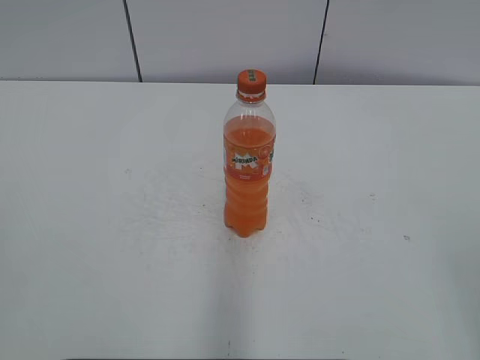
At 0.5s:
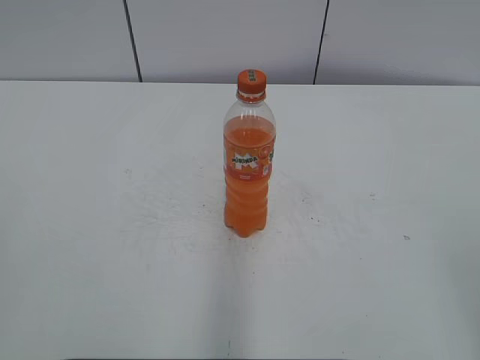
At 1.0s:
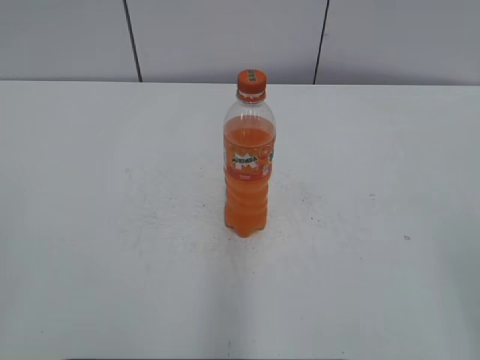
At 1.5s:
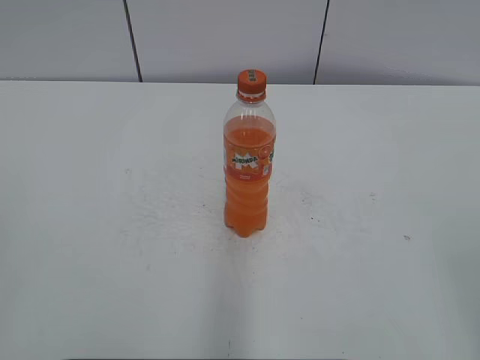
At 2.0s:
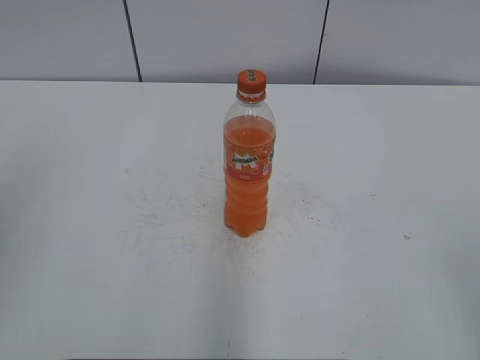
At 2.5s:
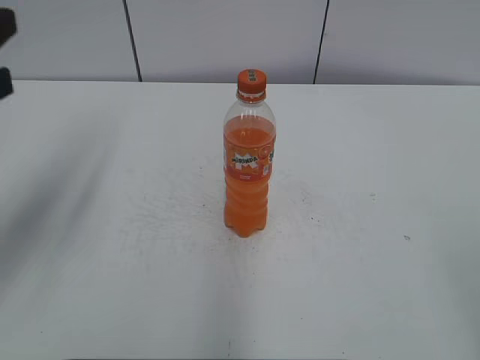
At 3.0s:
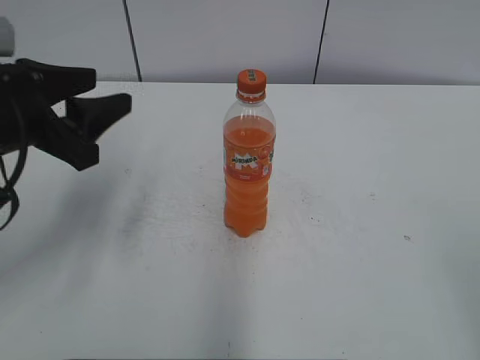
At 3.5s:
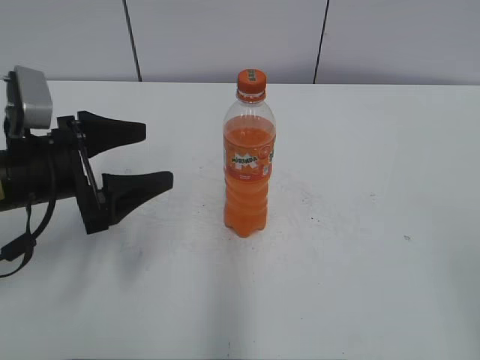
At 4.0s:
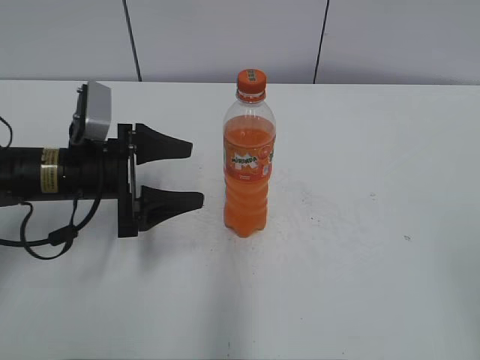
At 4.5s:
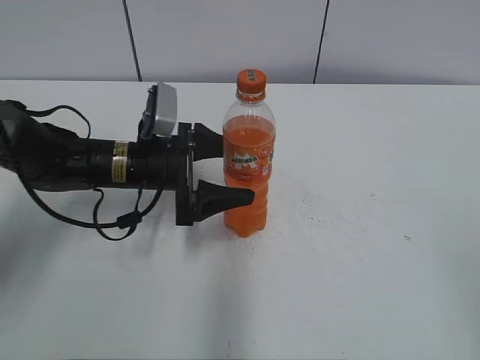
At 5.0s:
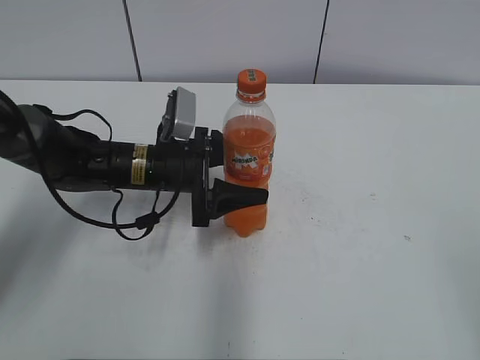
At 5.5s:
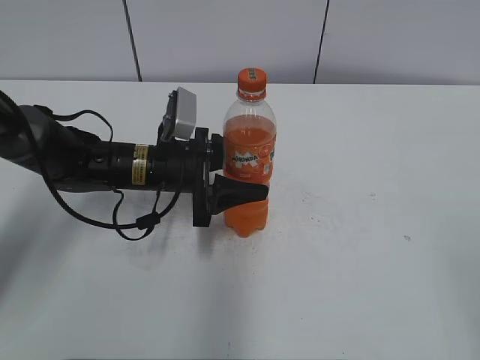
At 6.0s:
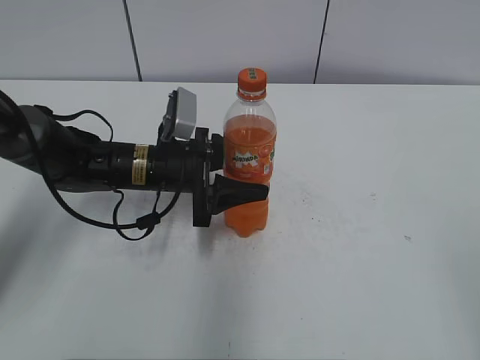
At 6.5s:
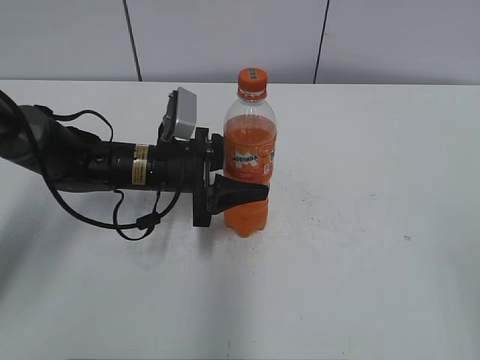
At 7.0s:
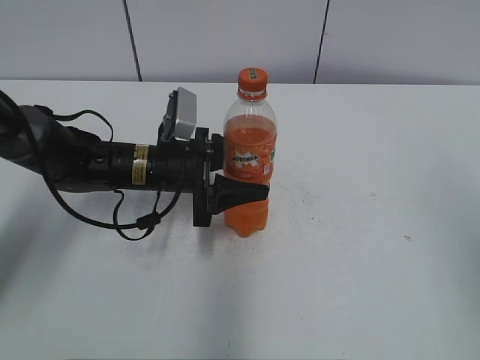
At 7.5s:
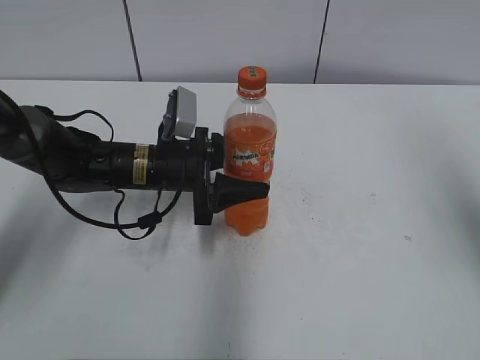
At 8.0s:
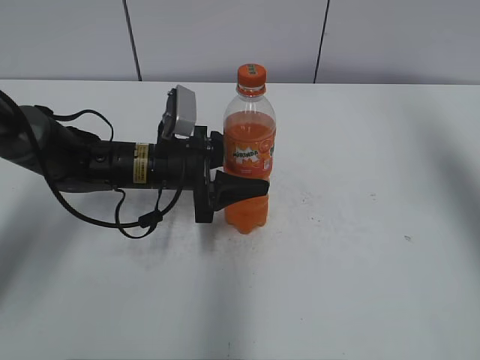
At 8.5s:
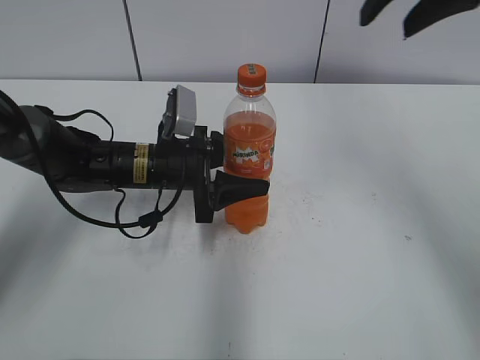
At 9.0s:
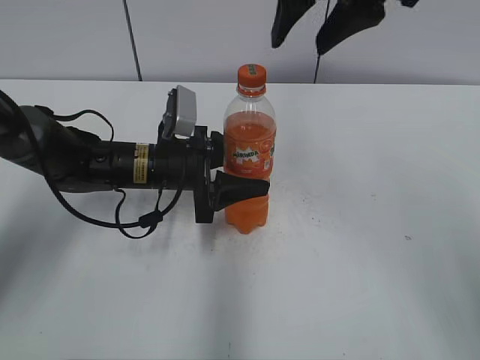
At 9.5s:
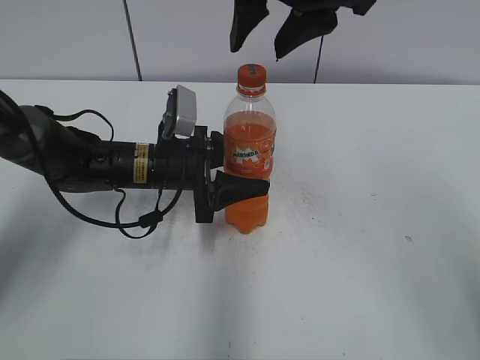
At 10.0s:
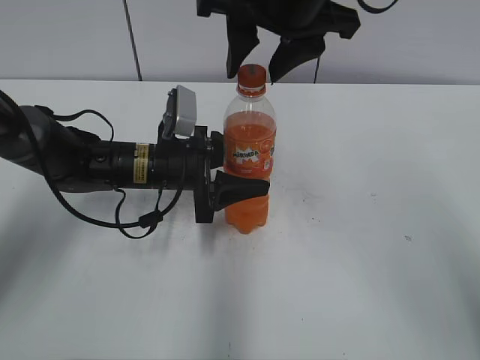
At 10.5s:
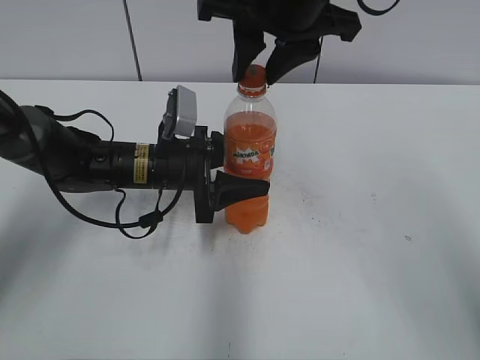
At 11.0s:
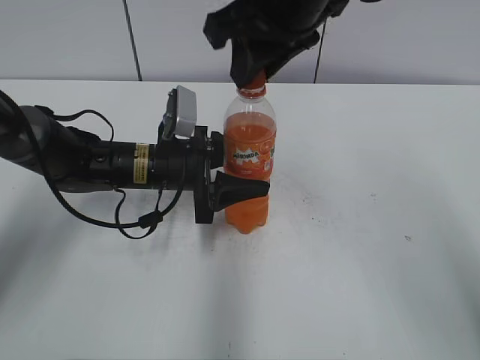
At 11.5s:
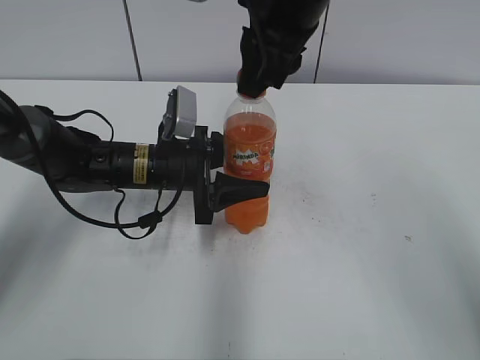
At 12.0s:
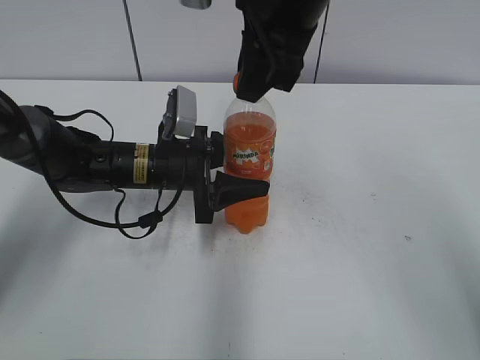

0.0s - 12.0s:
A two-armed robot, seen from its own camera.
Step, 0.0s - 5.0s: Grab the Mirinda with the left hand.
2.0s - 4.0s: The left gripper goes about 35 cm downward, forward and to the right, and opens.
4.0s - 6.0s: The left gripper moves to the right, roughly 10 cm, and closes up.
6.0s - 8.0s: The right gripper moves forward, roughly 30 cm.
8.0s - 10.0s: The right gripper goes some 25 cm to the left.
10.0s - 12.0s: The right gripper closes.

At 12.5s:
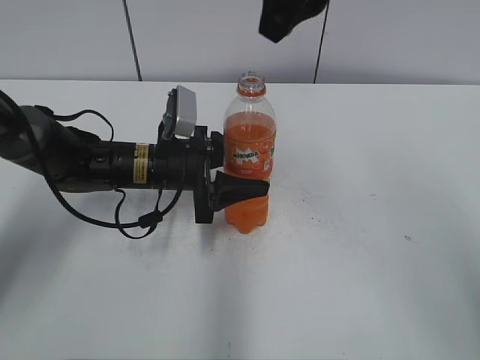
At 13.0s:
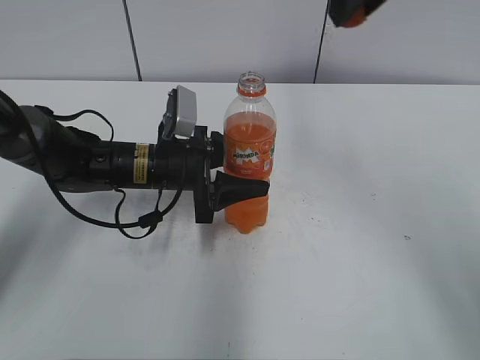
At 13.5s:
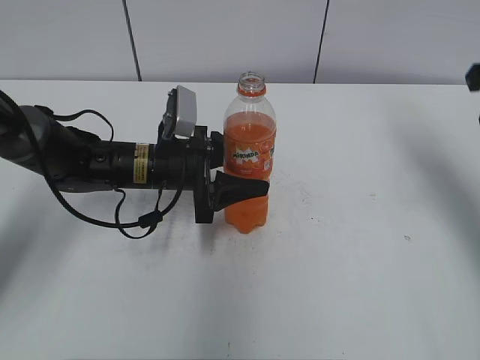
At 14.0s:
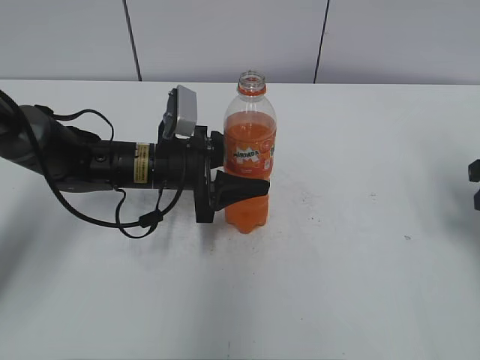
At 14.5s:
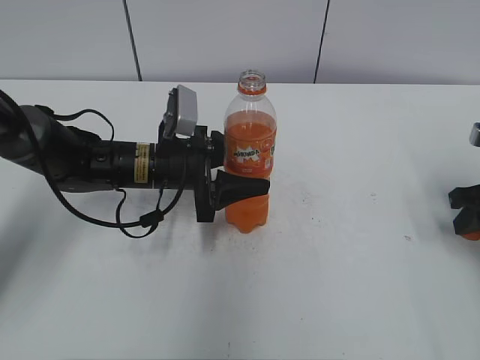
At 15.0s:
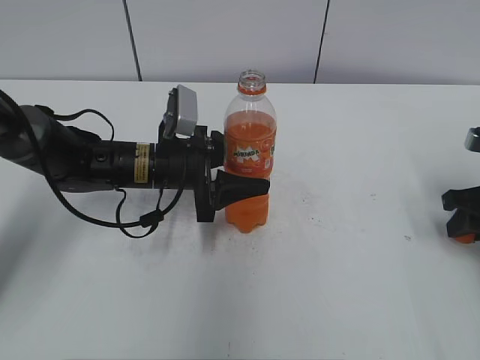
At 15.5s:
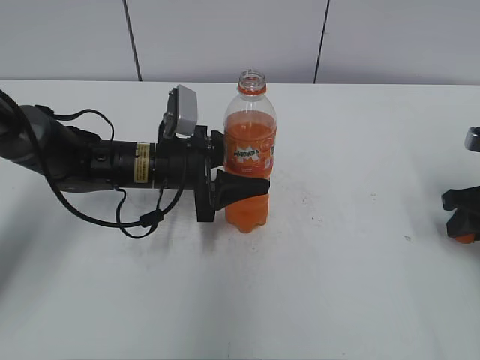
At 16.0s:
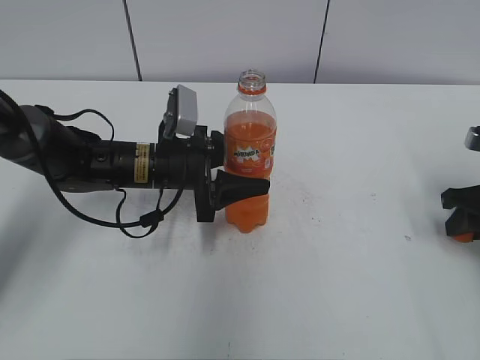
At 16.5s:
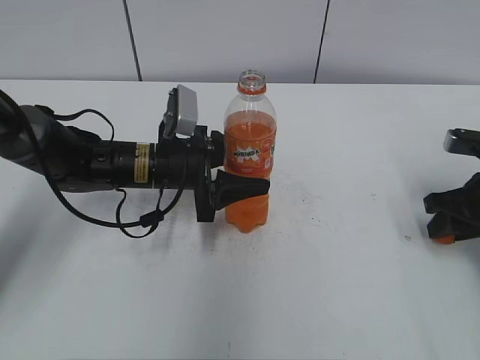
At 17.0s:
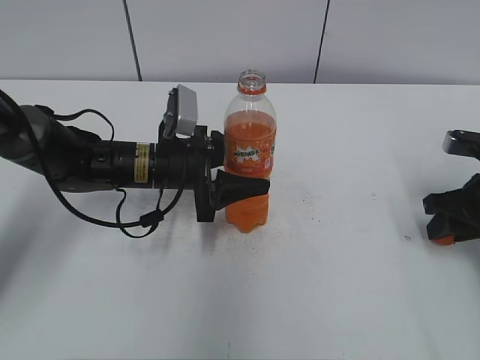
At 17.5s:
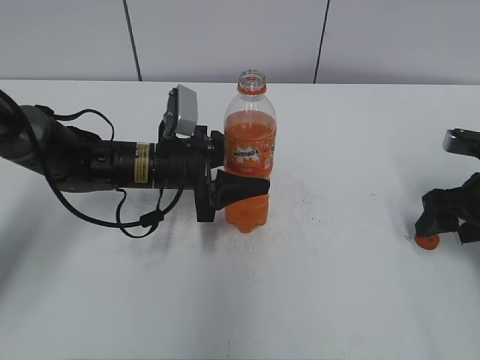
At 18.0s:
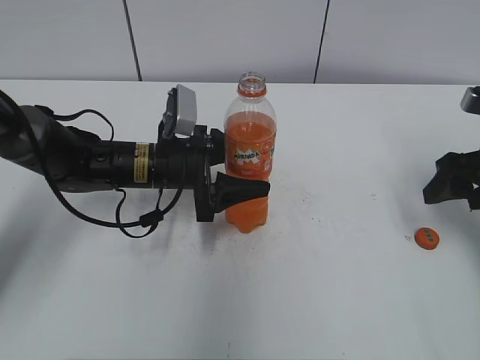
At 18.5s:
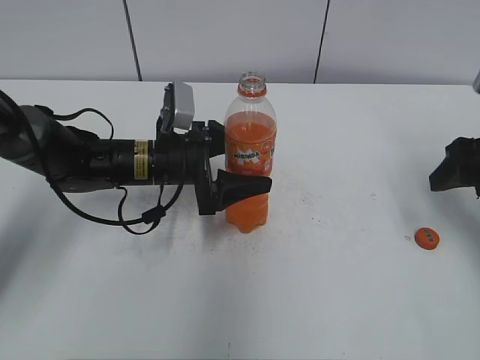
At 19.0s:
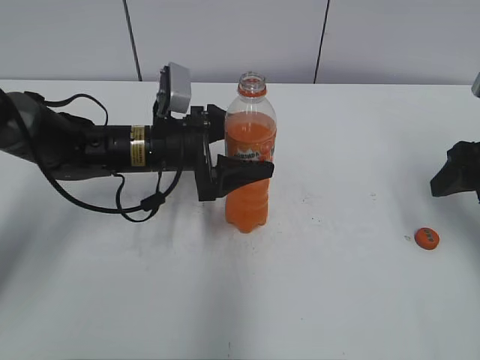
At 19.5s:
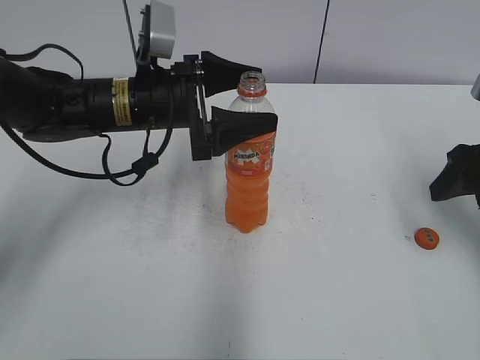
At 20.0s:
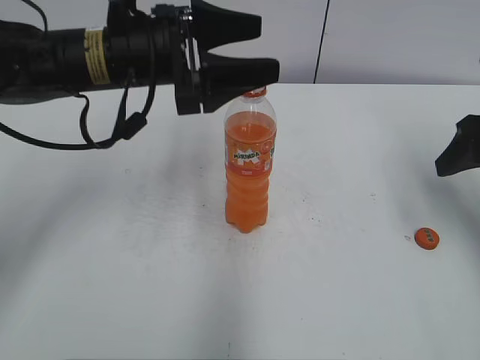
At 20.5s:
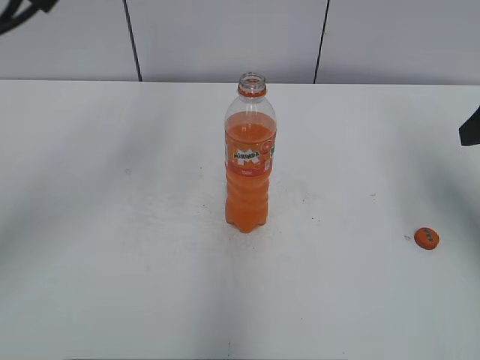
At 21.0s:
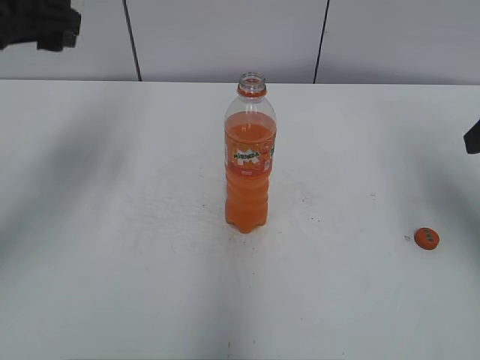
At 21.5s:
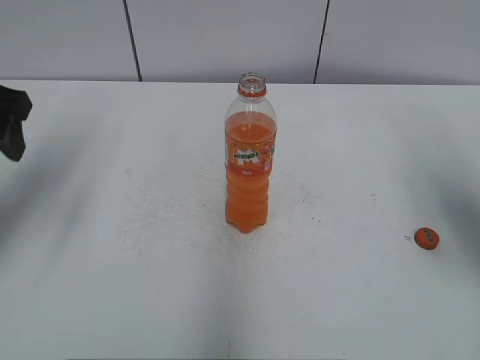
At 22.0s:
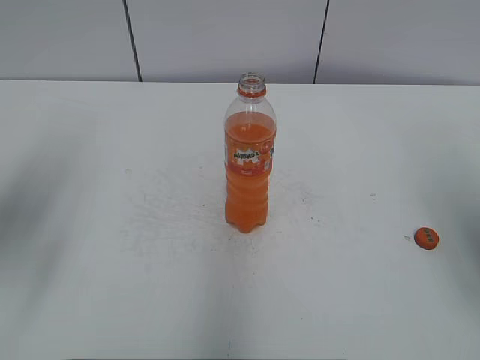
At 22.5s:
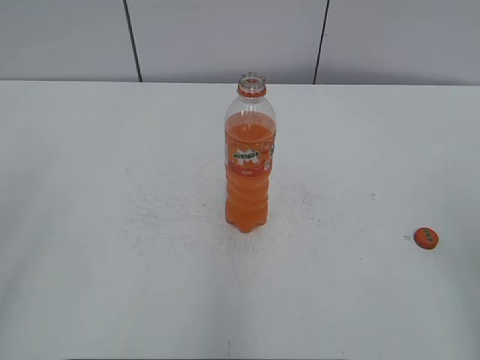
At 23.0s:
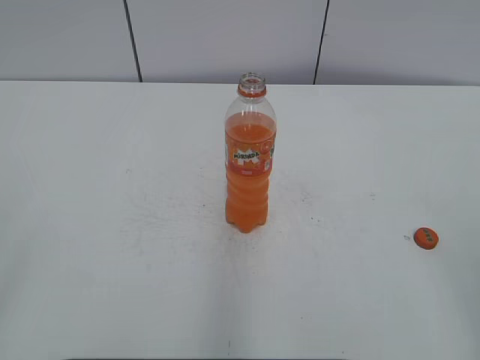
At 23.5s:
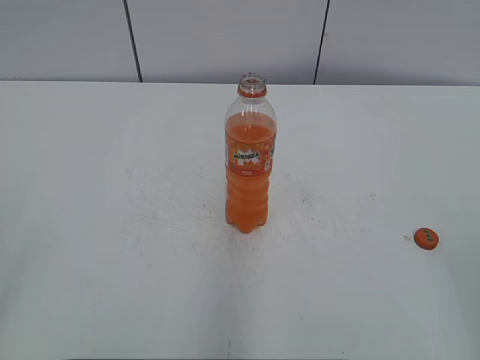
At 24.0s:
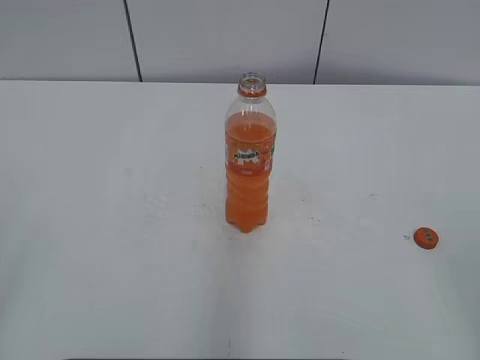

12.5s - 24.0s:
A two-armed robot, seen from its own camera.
Step, 12.5s - 17.5s: Place the bottle cap on the right.
12.5s - 14.5s: The right gripper shifts about 35 cm to the right and downward.
14.5s - 16.5s: The grippers make only small movements.
16.5s - 18.5s: The right gripper heads upward, covering some 10 cm, and opens its fingers, while the left gripper opens its fingers.
18.5s - 20.0s: The left gripper heads upward, covering about 15 cm.
20.0s - 22.0s: The left gripper heads to the left and backward, covering approximately 20 cm; the right gripper heads backward and upward, covering approximately 10 cm.
22.0s - 24.0s: The two grippers go roughly 20 cm backward.

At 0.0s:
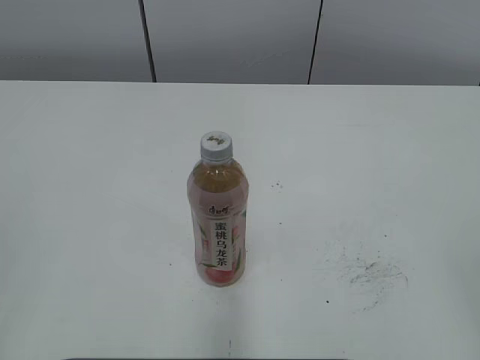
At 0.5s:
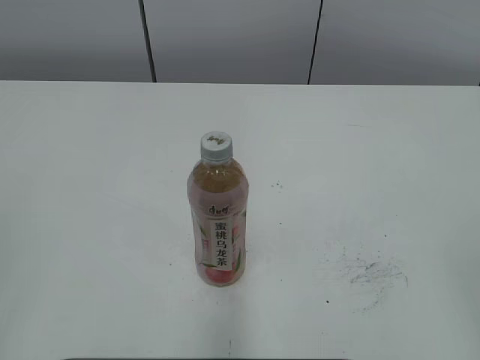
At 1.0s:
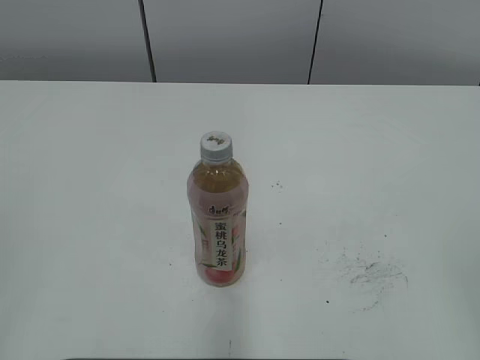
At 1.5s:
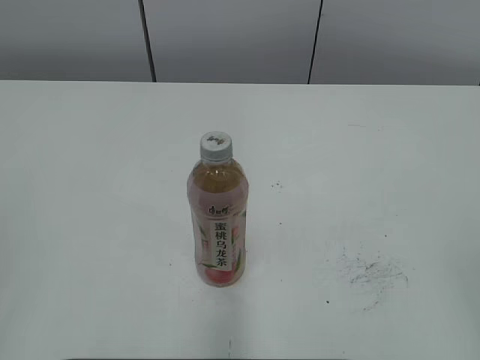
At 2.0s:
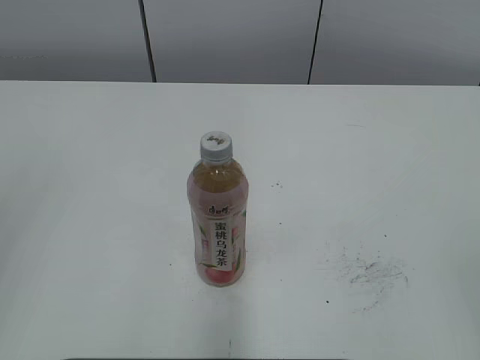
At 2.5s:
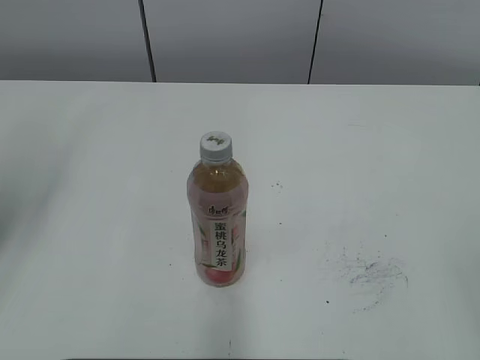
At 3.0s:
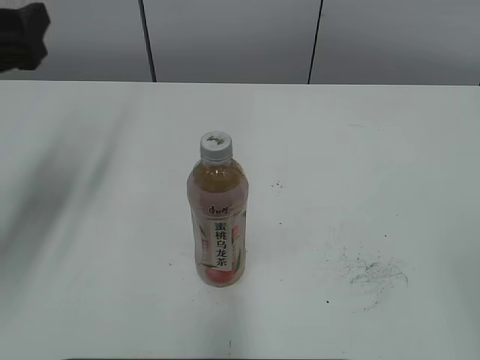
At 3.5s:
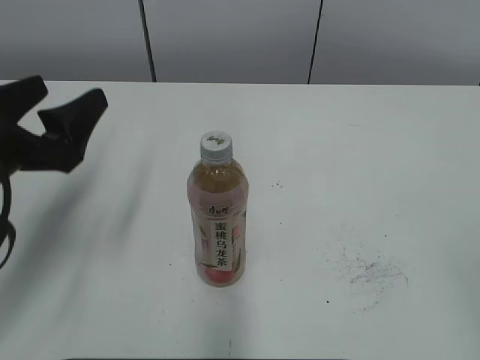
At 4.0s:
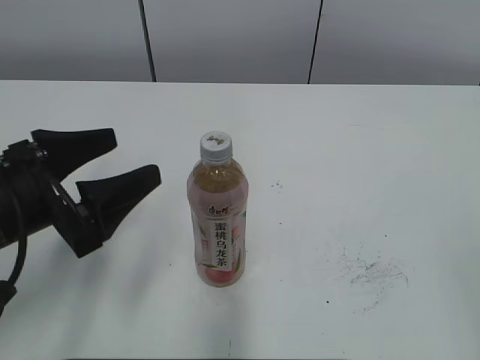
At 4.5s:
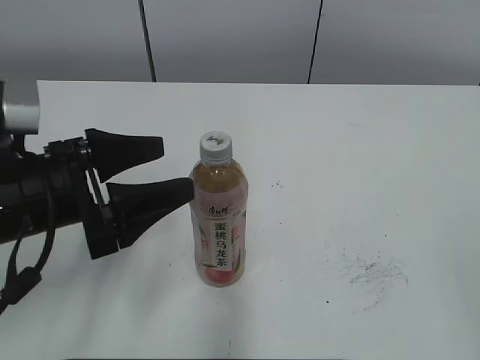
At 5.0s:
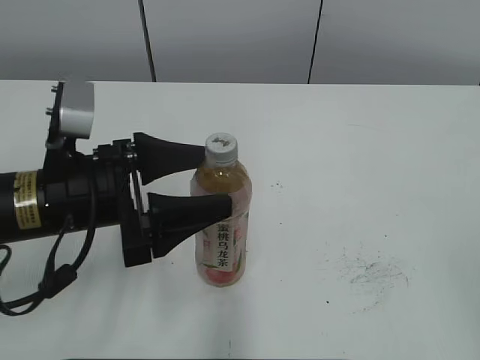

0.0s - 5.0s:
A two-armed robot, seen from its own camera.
2.5s - 5.0s: The left gripper travels downward and to the right by roughly 20 cm.
